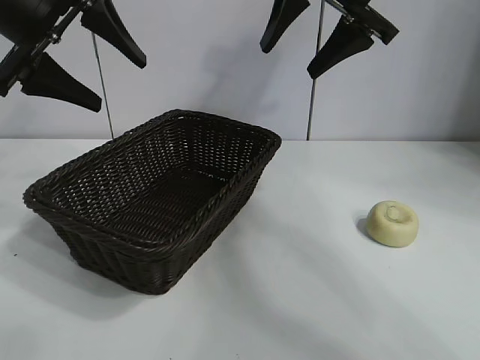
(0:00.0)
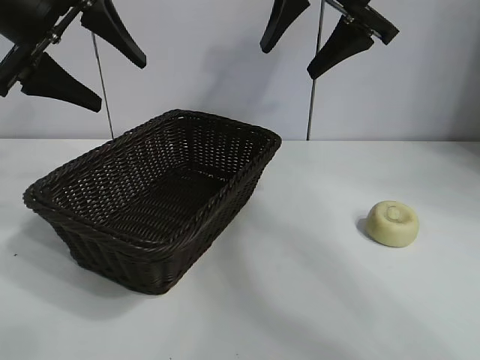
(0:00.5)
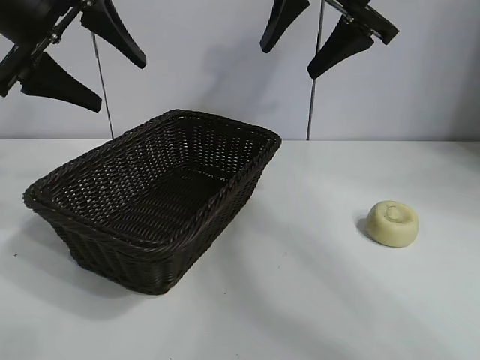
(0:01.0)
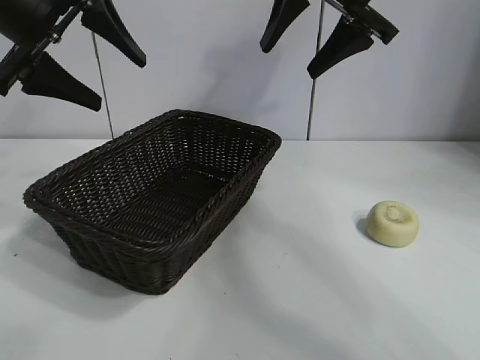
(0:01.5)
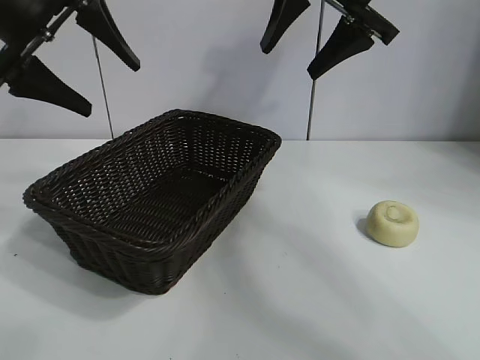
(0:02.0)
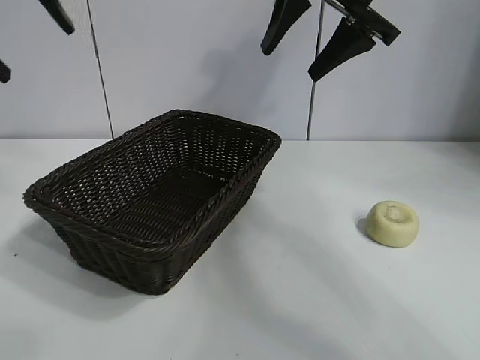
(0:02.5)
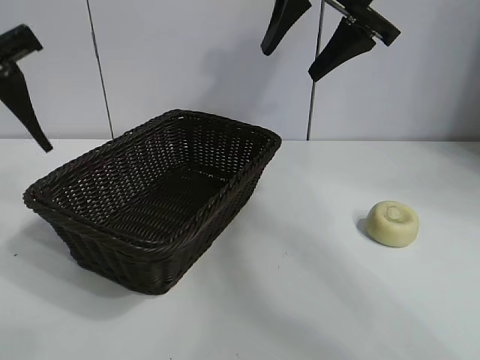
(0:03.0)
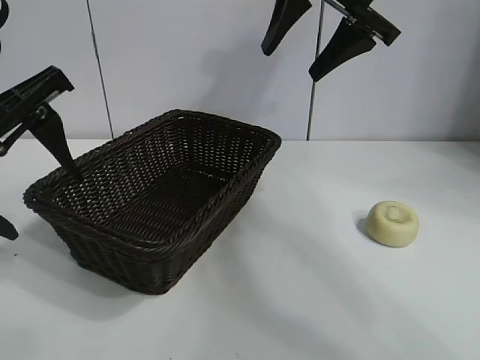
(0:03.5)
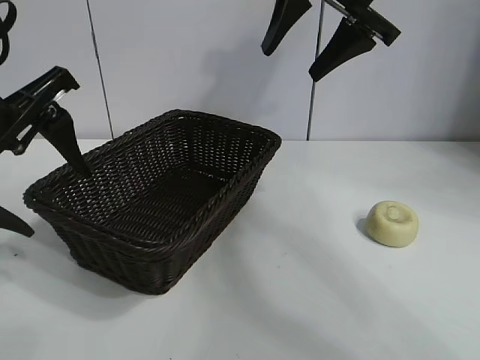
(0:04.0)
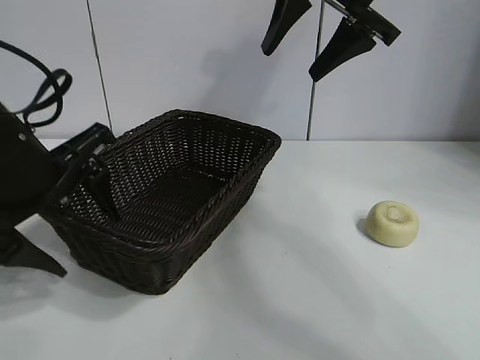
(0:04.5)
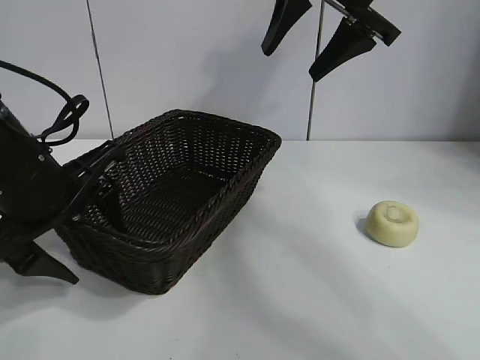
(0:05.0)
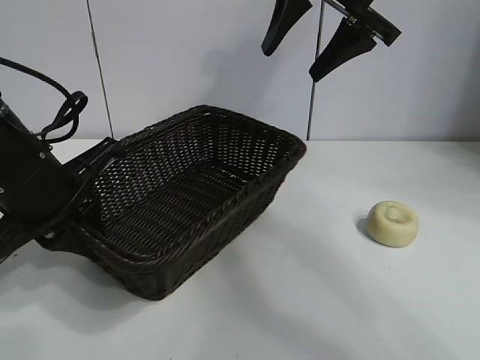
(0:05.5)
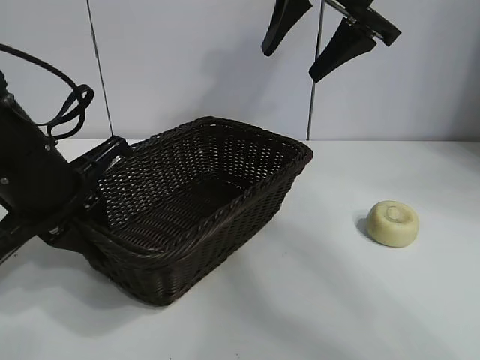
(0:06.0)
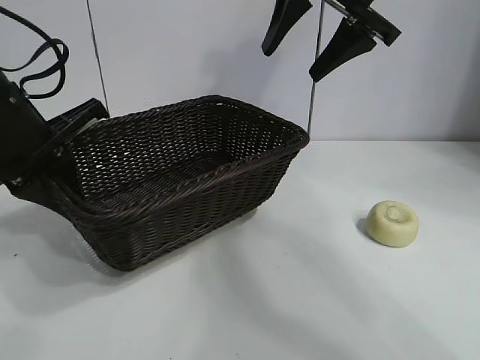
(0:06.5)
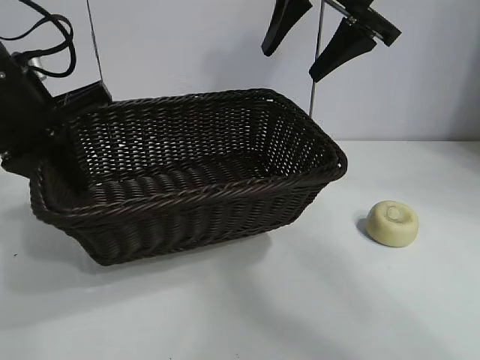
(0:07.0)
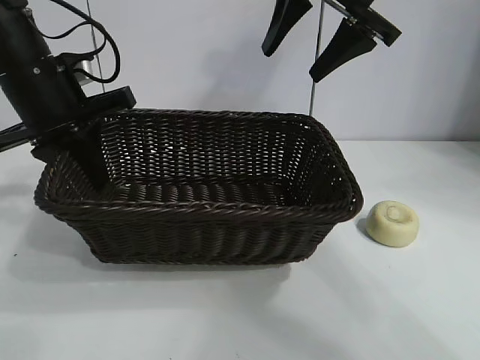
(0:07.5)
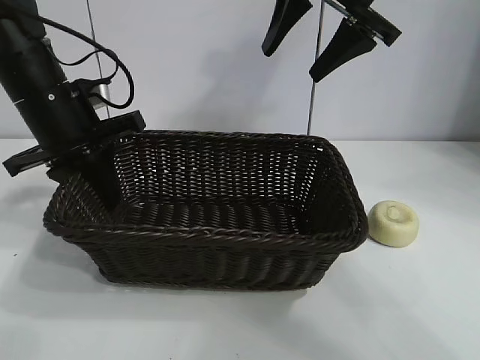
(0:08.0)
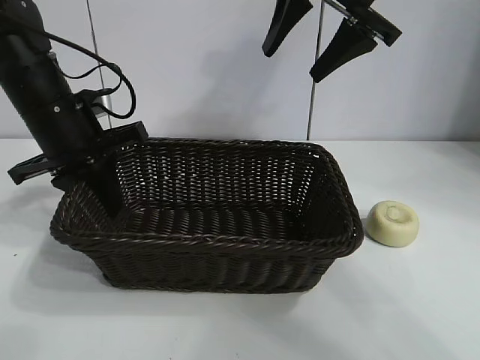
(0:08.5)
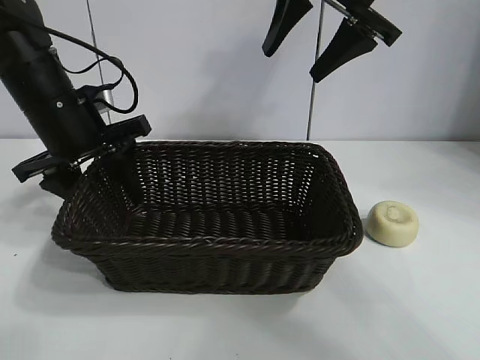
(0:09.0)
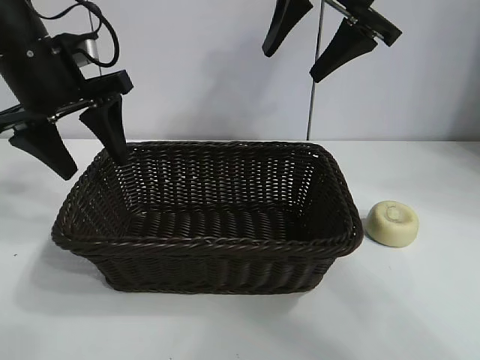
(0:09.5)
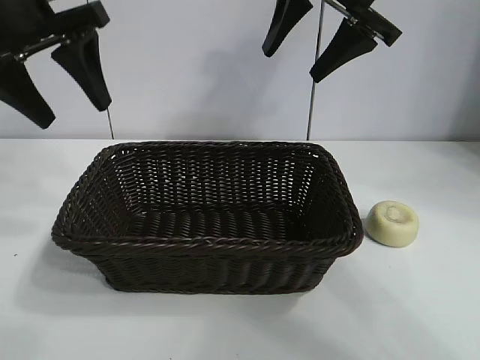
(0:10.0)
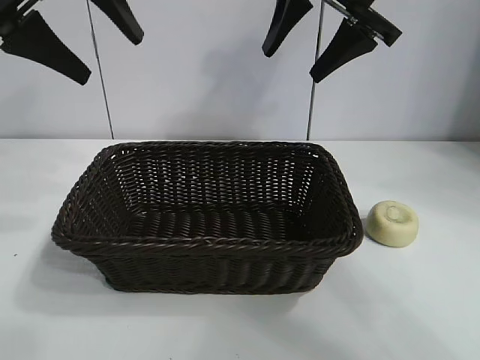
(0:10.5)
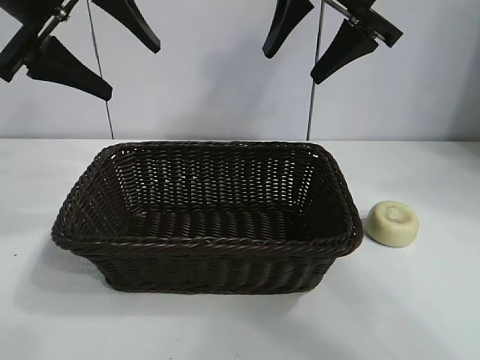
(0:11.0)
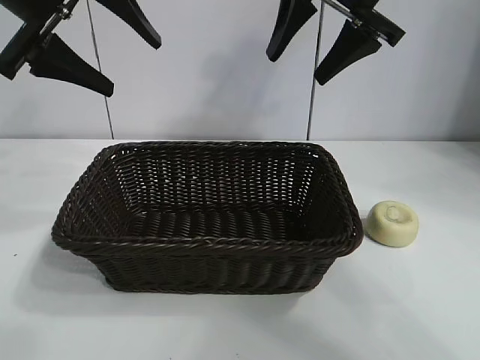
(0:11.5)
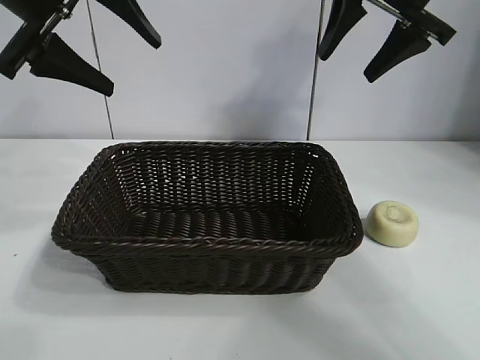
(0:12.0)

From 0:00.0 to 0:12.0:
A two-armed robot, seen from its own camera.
Task of the whole recording: pick up the egg yolk pastry and put it into the basket.
Step, from 0:02.0 to 0:05.0: Grasp the basket with left gripper.
Step, from 0:05.5 to 0:09.0: Place the basket in the center of view with left gripper.

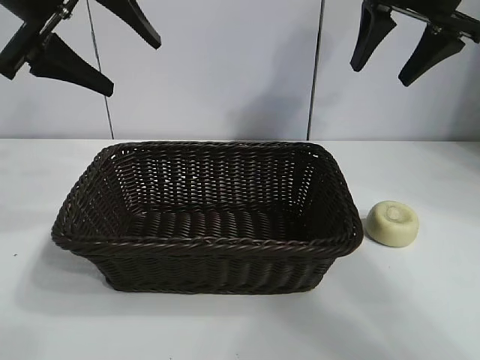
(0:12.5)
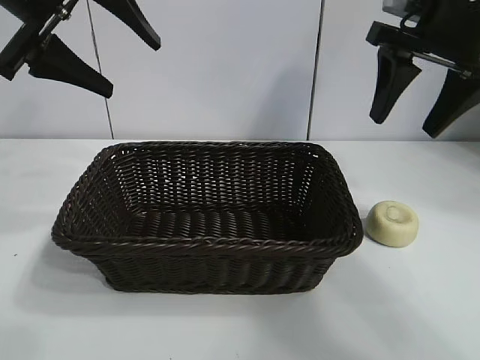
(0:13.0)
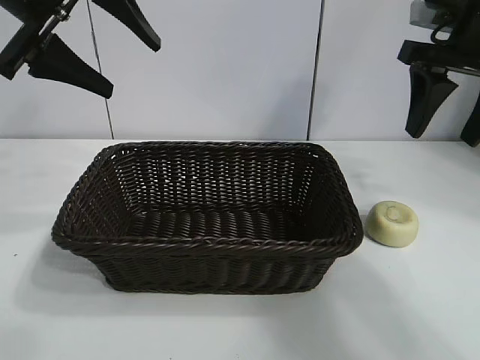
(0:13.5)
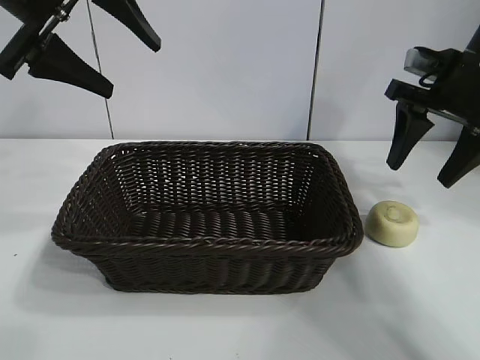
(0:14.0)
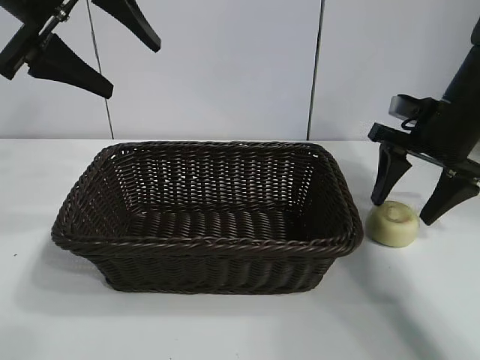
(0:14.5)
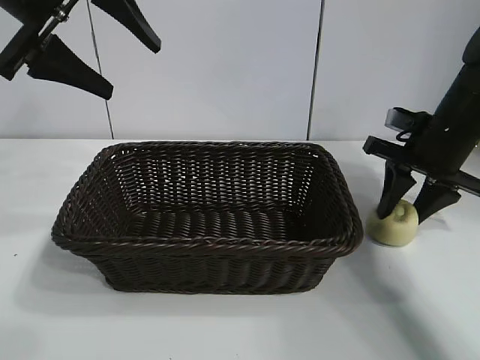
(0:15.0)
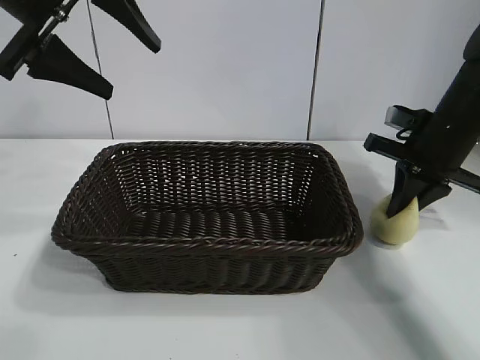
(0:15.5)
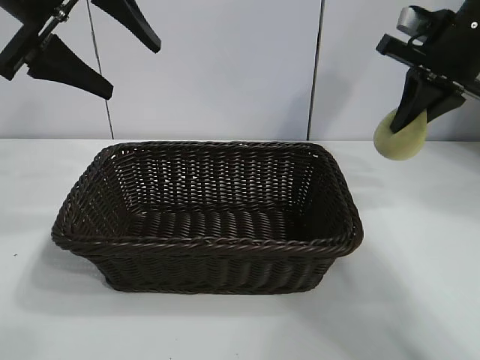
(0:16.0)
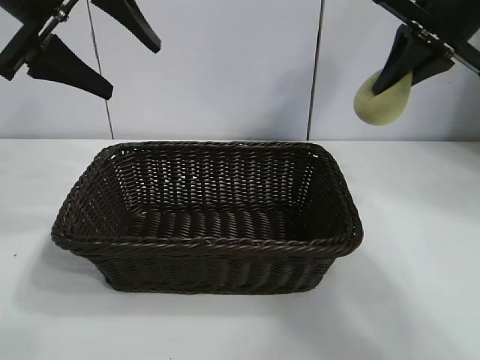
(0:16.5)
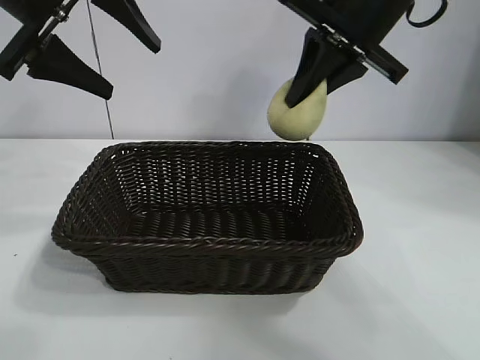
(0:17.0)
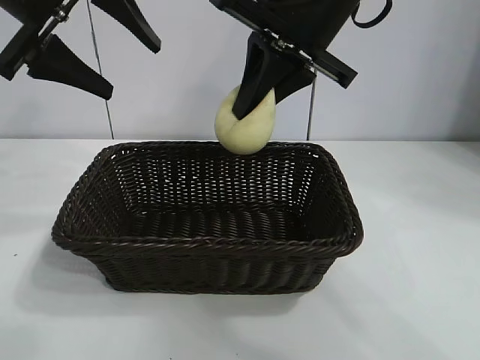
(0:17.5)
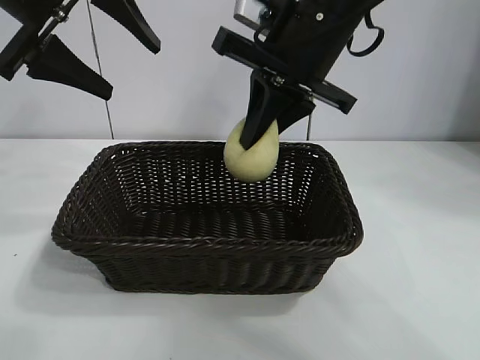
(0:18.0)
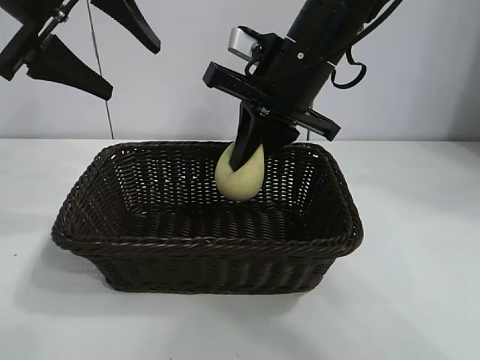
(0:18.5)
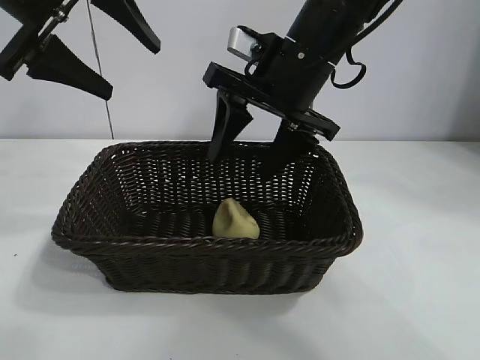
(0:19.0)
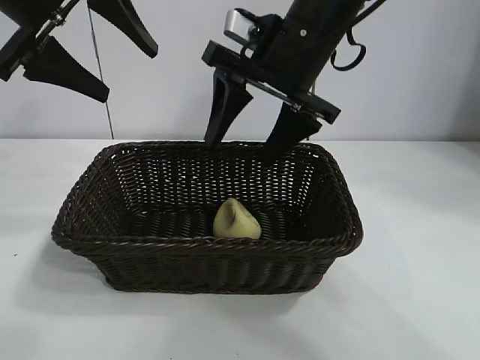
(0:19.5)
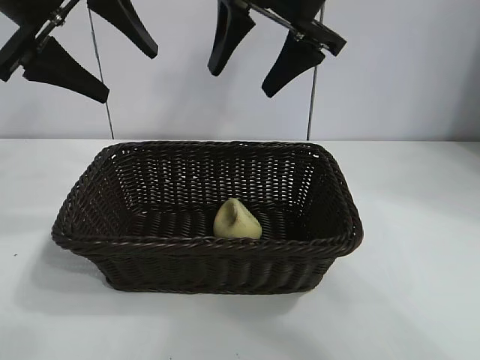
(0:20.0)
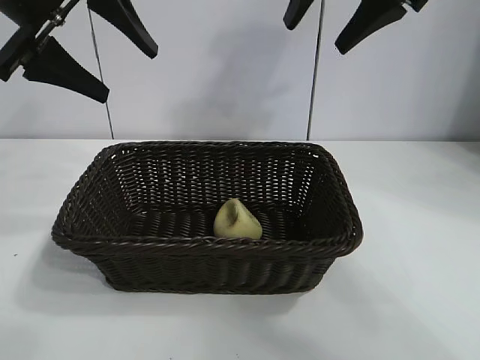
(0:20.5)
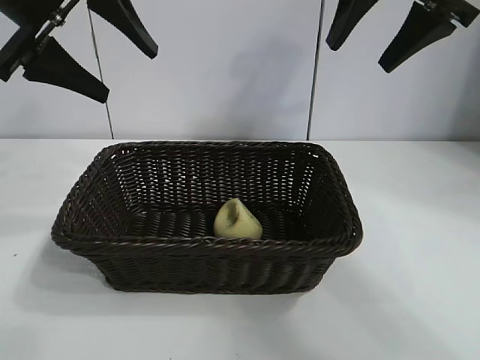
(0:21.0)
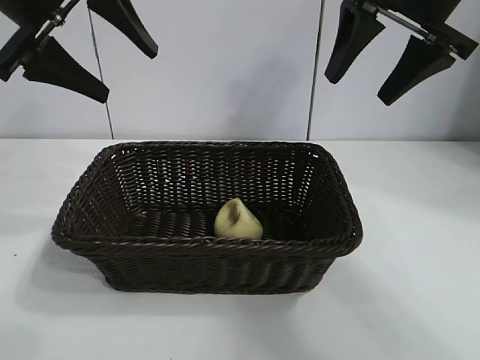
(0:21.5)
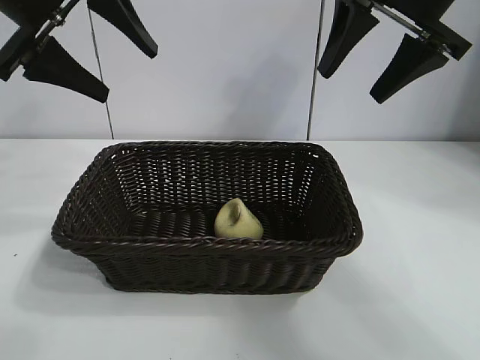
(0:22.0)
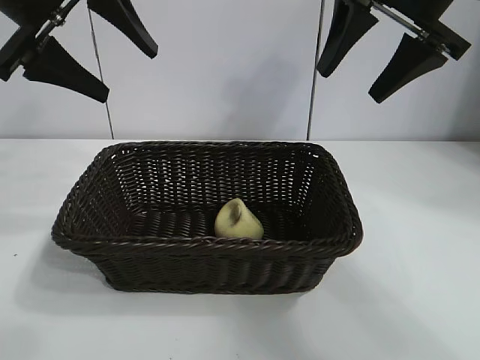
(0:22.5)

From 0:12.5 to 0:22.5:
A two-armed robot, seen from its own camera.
Task of the whole recording: pick up the egg yolk pastry and put it into the basket.
Step, from 0:12.5 to 0:15.0: Grasp egg yolk pastry with right gripper.
Step, from 0:15.5 to 0:18.5: Place the egg yolk pastry in the basket with right gripper.

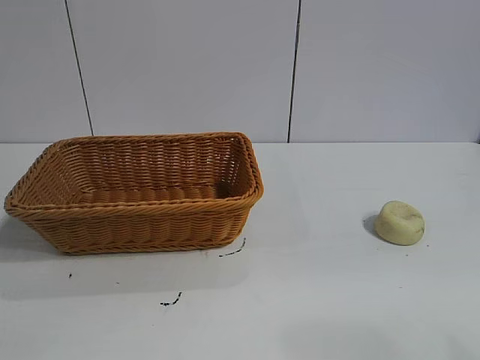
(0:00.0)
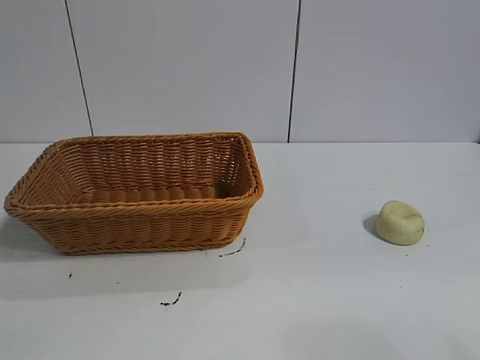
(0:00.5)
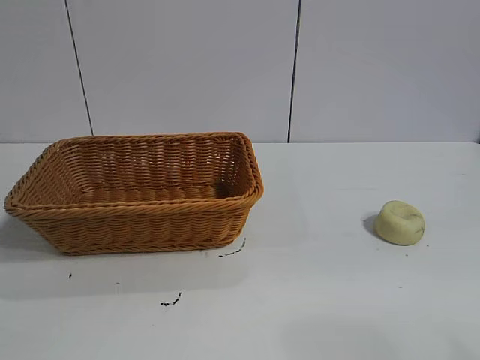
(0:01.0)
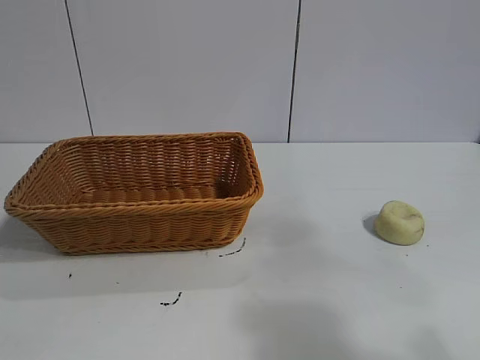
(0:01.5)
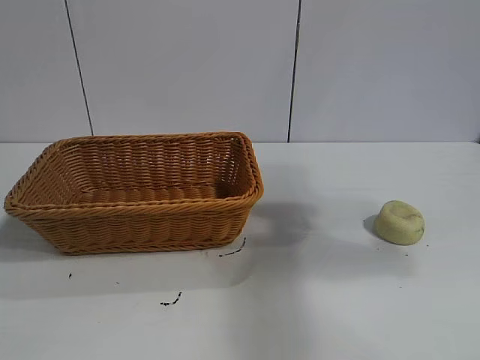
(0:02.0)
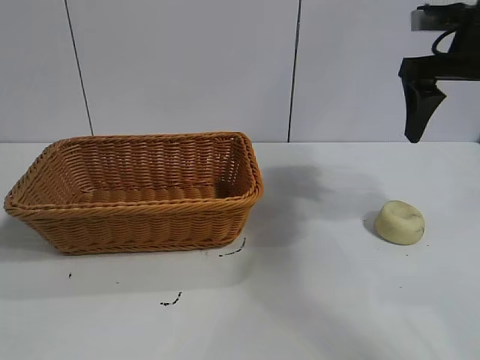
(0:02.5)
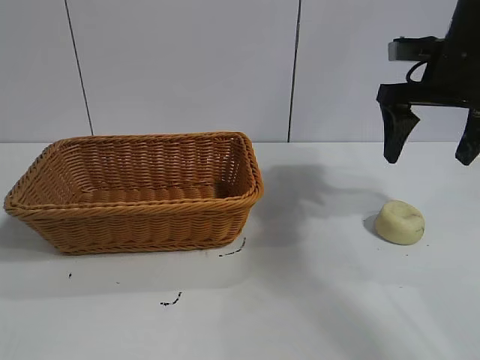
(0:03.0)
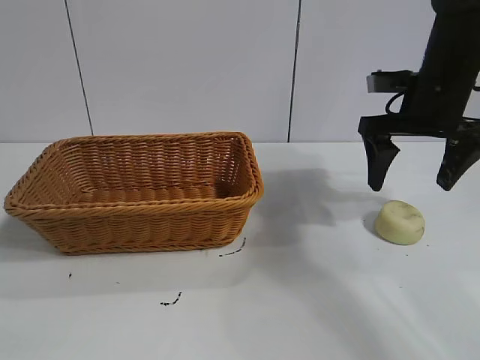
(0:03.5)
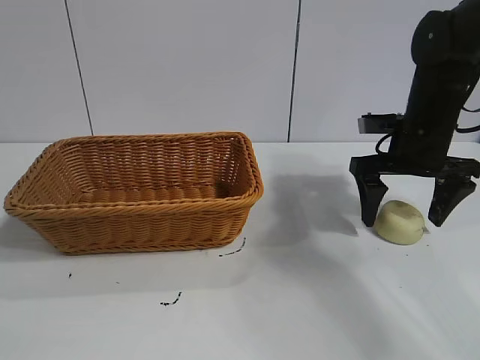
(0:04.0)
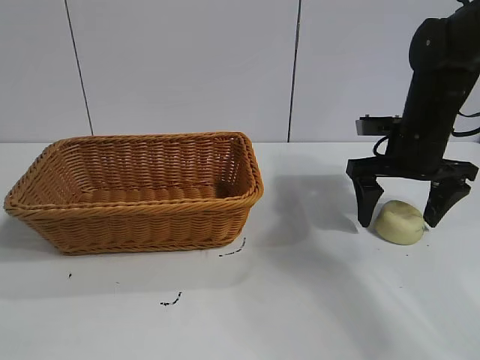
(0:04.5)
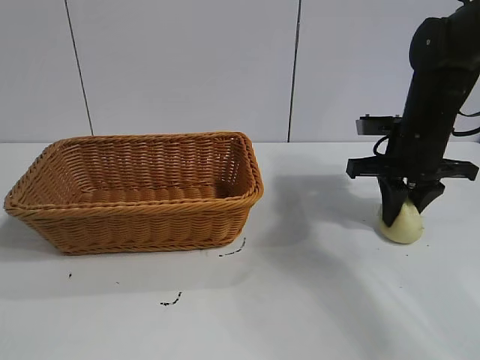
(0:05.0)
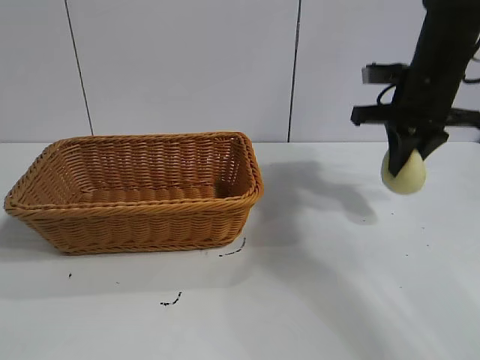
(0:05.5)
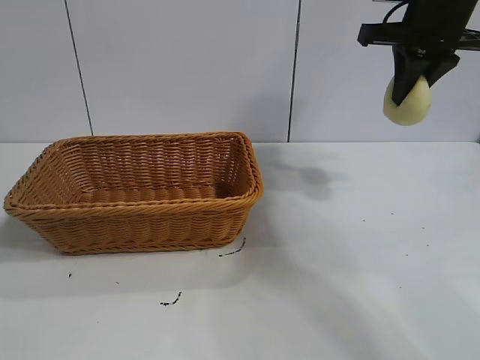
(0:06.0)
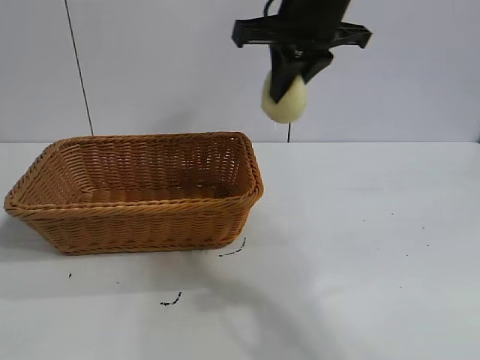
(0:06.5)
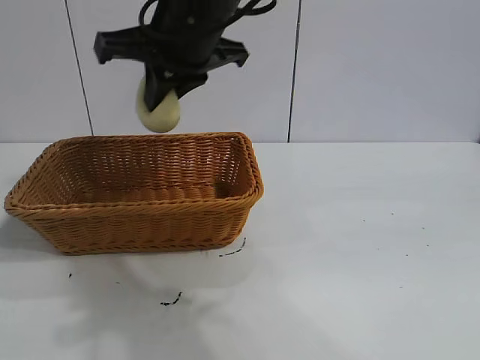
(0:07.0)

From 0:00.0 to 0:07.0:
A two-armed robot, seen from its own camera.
Task of the whole recording: pick up the egg yolk pastry and put it into the basket.
Step, from 0:01.0 to 0:05.0: Grasp egg yolk pastry with right gripper.
